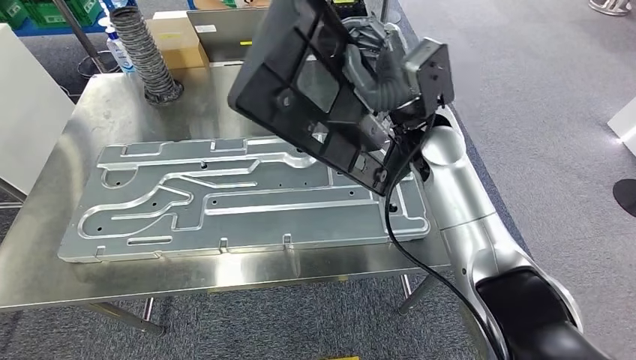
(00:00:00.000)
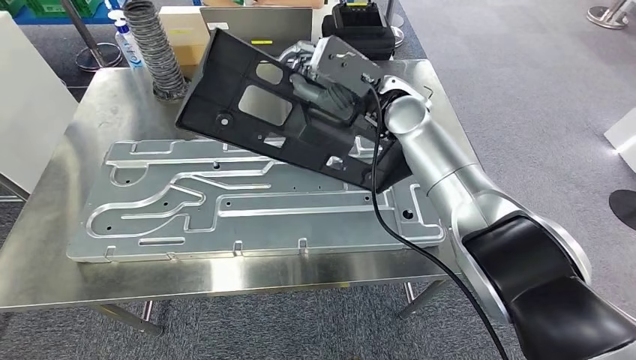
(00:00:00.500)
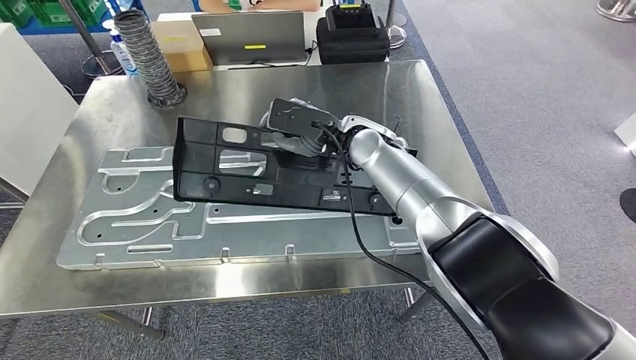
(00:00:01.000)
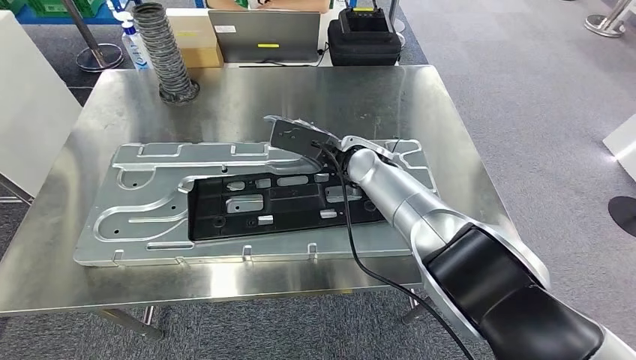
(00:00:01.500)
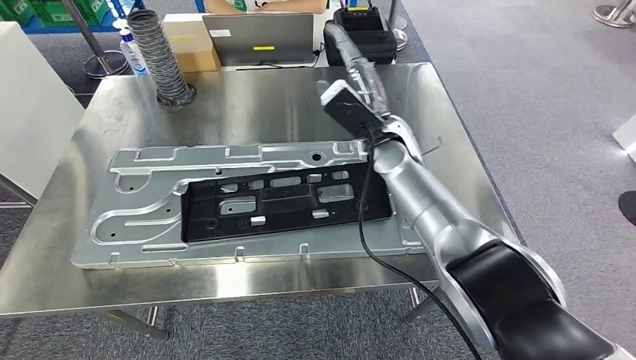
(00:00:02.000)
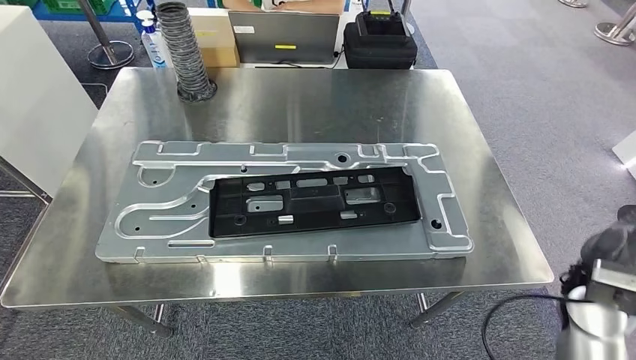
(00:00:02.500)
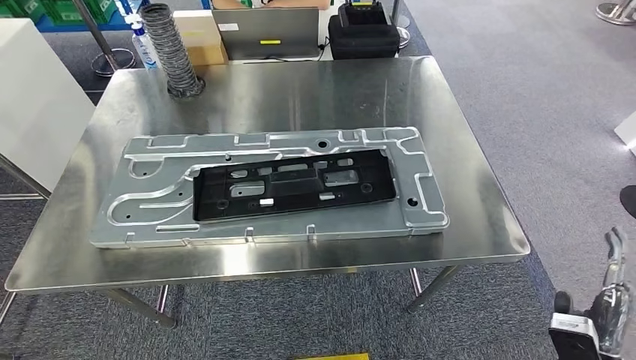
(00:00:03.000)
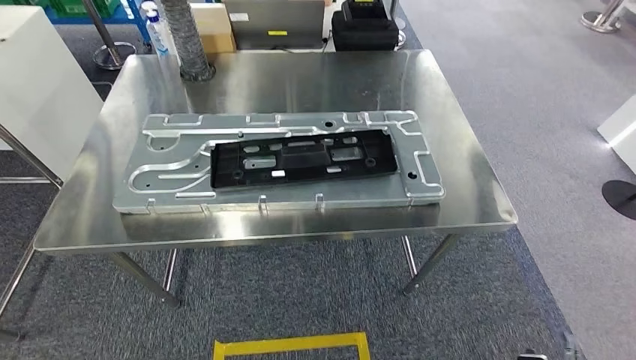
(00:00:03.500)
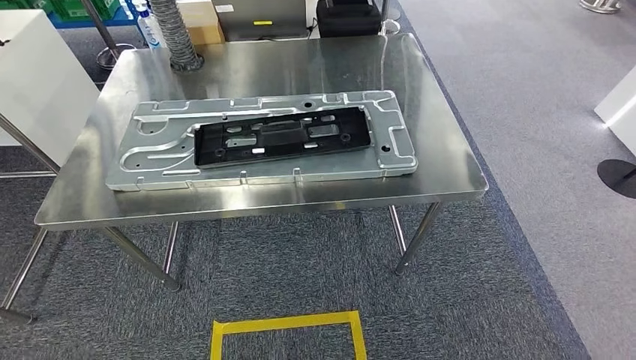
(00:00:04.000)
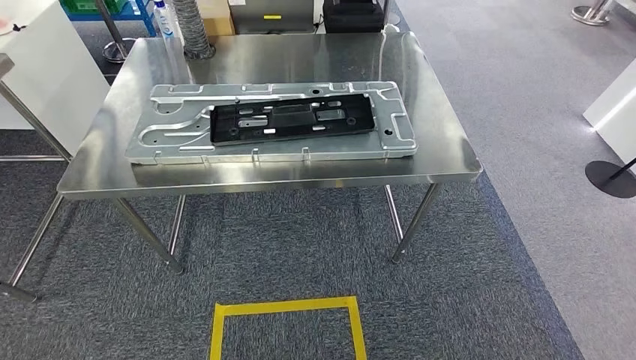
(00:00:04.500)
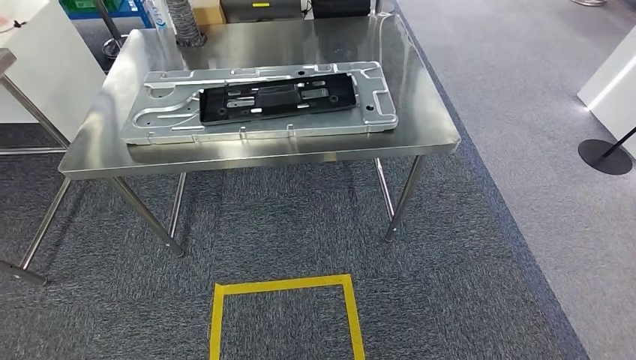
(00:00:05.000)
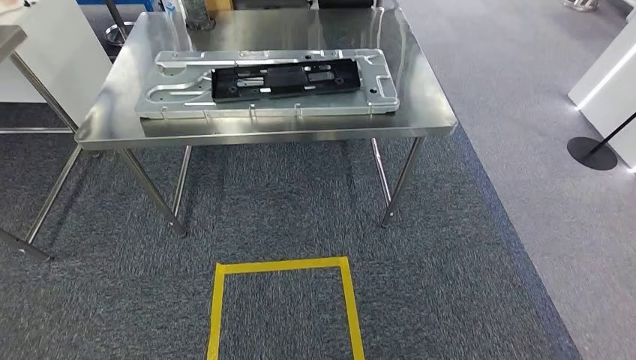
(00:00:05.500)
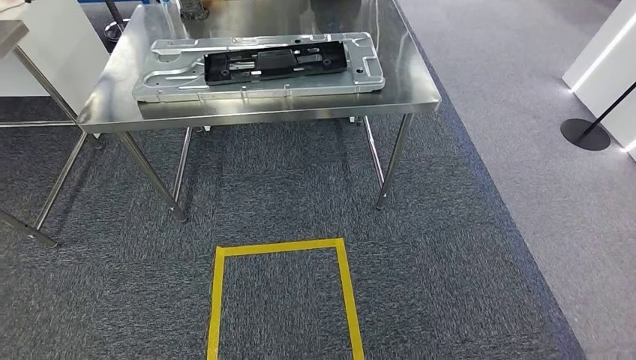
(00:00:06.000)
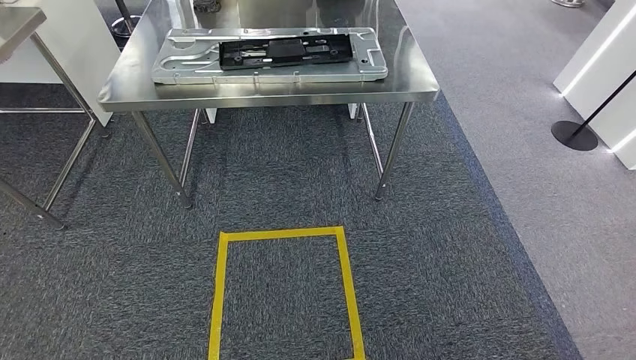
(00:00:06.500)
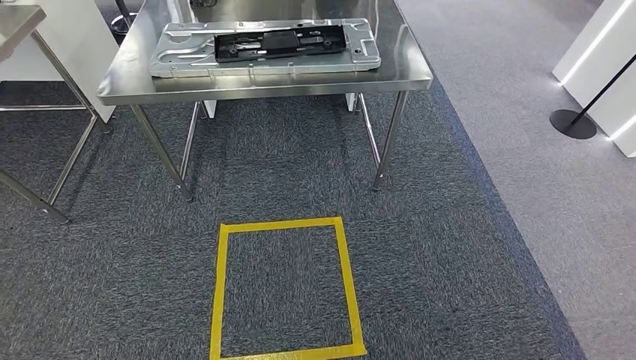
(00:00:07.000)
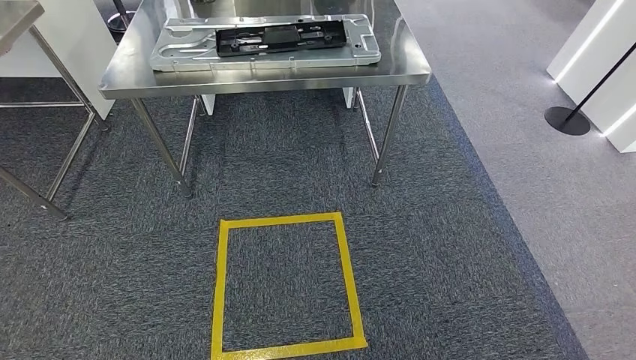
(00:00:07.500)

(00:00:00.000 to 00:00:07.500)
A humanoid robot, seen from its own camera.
Step, 00:00:00.000 - 00:00:02.000: Insert the large material into the corresponding slot on the workbench.
Step, 00:00:04.000 - 00:00:07.500: Move to the initial position of the shelf.
